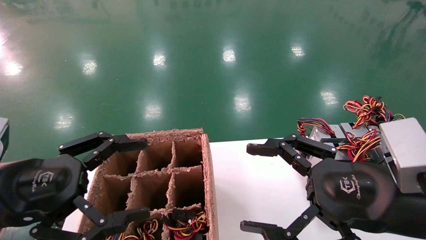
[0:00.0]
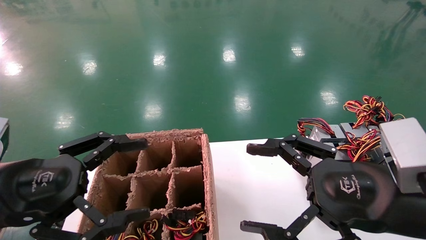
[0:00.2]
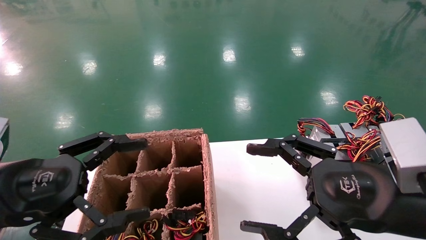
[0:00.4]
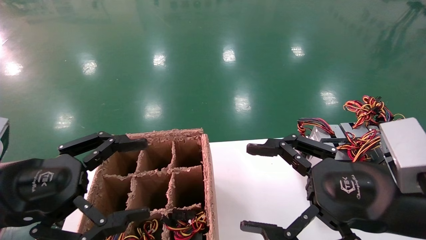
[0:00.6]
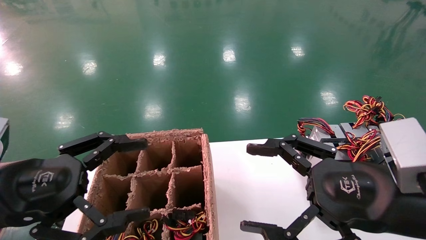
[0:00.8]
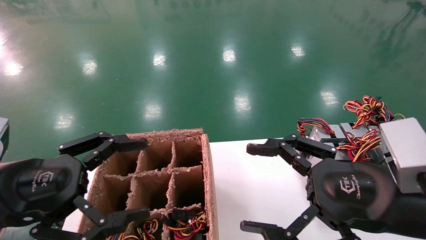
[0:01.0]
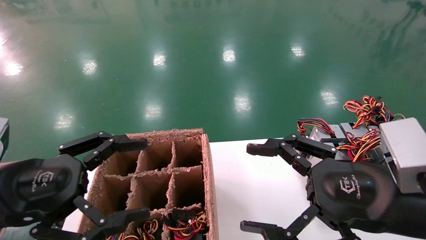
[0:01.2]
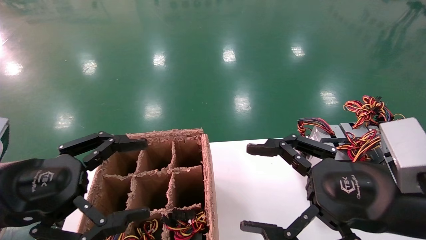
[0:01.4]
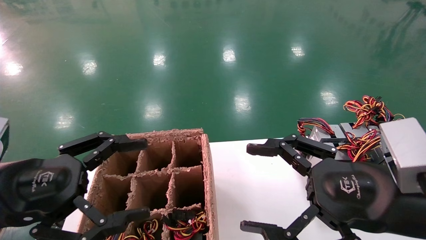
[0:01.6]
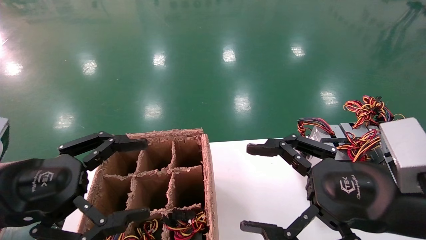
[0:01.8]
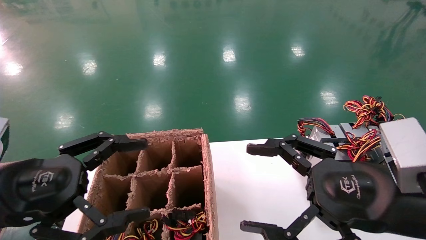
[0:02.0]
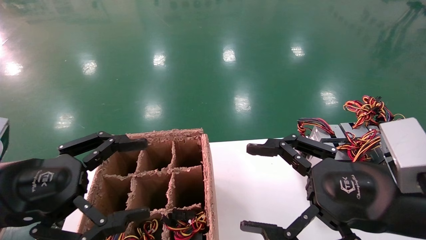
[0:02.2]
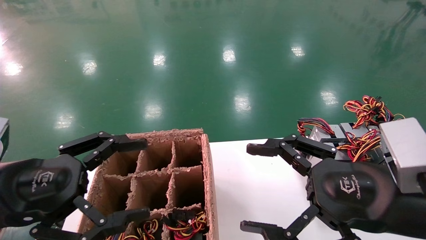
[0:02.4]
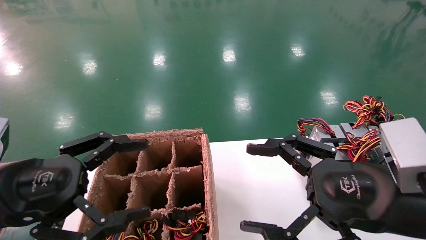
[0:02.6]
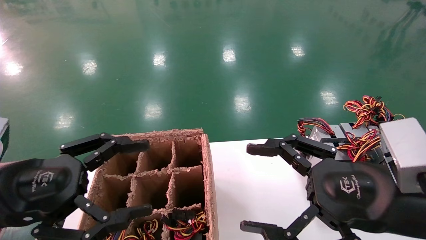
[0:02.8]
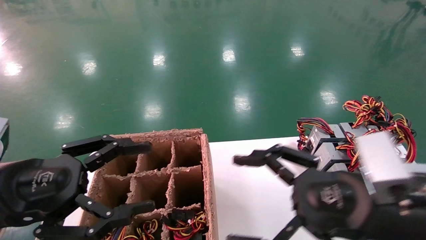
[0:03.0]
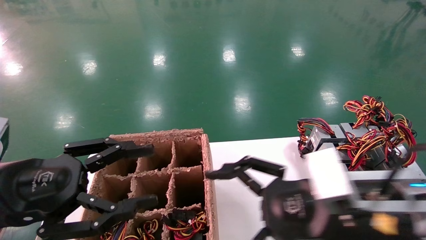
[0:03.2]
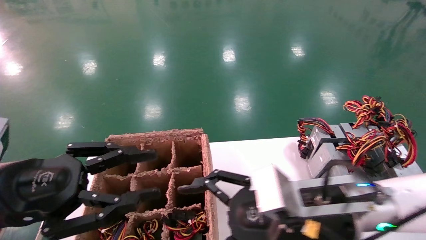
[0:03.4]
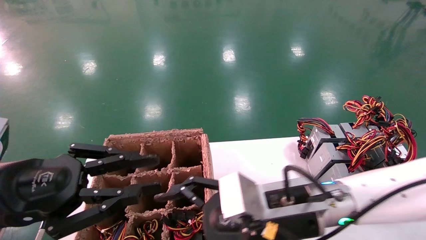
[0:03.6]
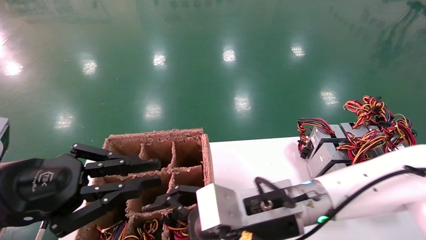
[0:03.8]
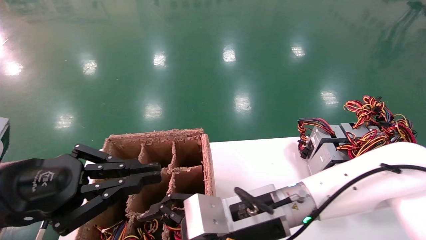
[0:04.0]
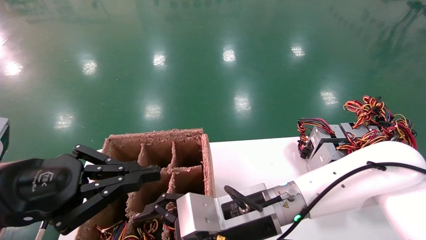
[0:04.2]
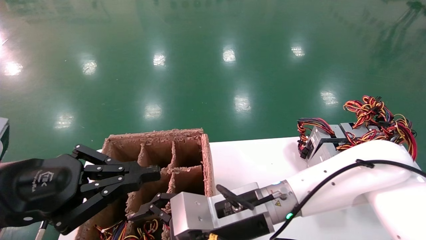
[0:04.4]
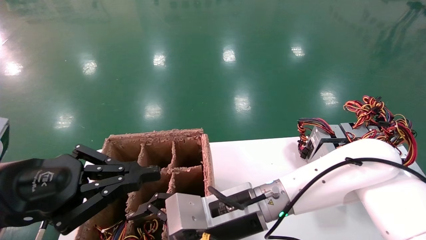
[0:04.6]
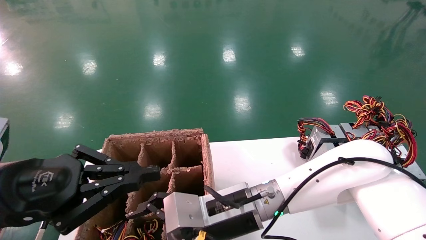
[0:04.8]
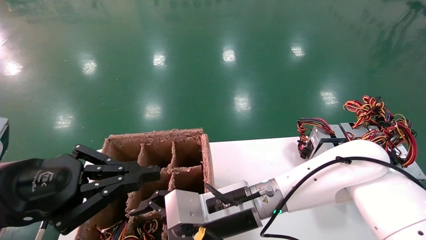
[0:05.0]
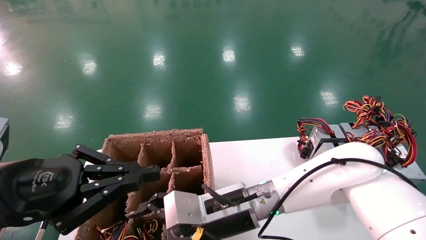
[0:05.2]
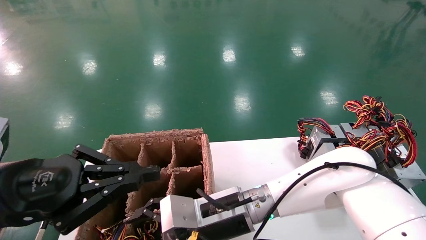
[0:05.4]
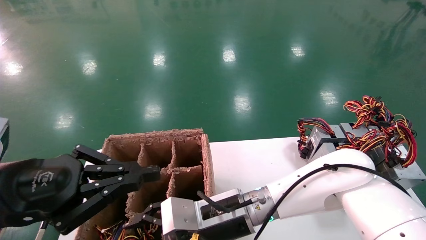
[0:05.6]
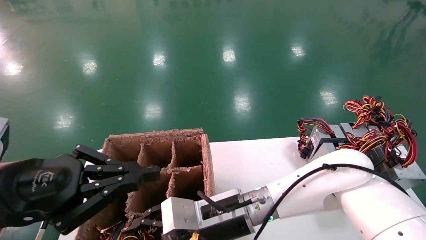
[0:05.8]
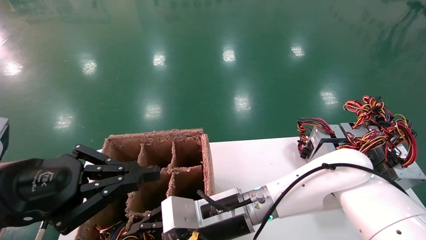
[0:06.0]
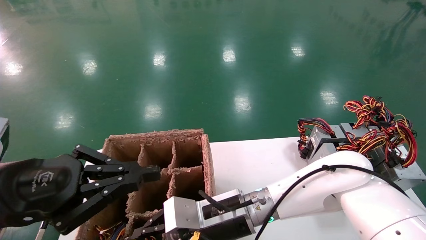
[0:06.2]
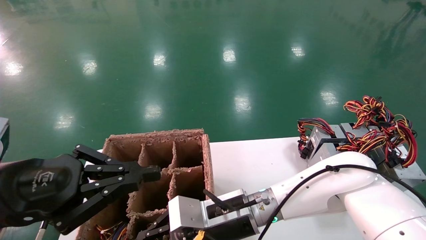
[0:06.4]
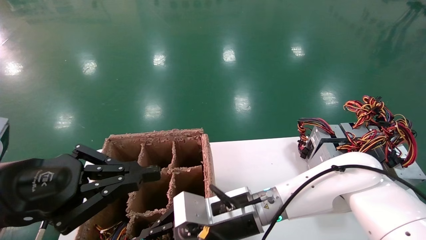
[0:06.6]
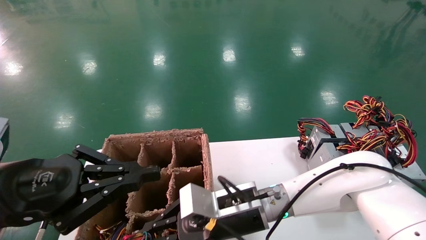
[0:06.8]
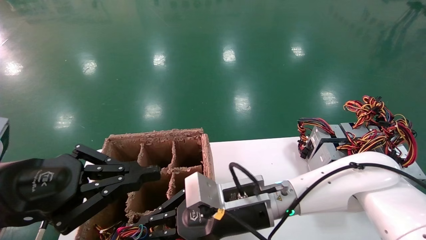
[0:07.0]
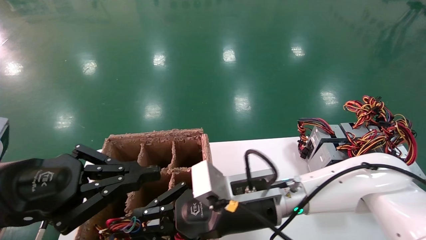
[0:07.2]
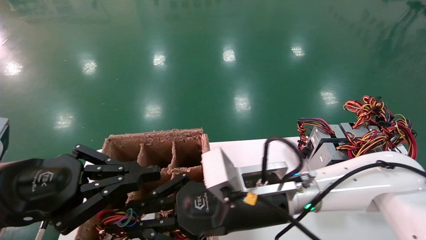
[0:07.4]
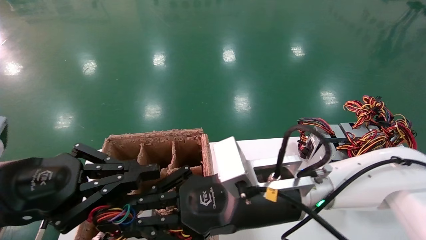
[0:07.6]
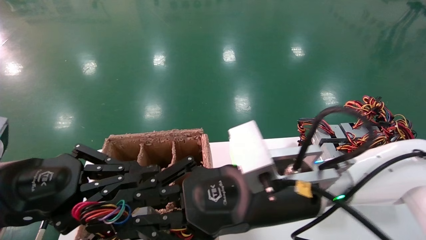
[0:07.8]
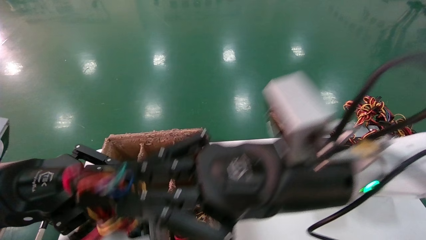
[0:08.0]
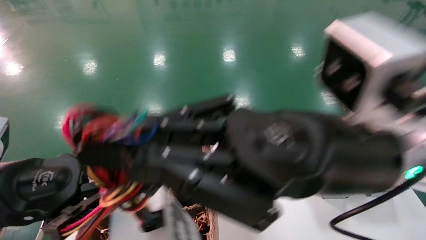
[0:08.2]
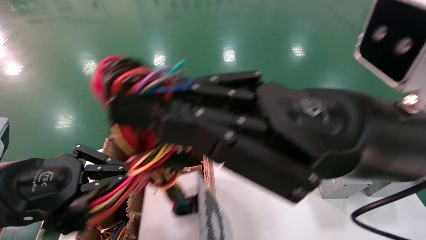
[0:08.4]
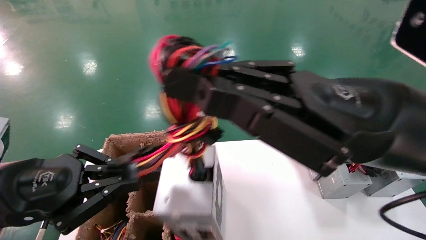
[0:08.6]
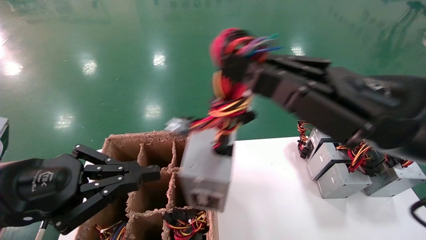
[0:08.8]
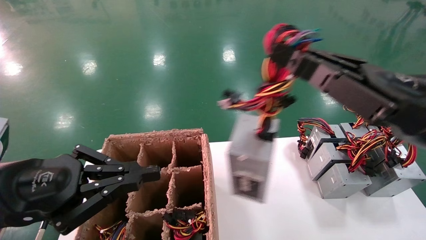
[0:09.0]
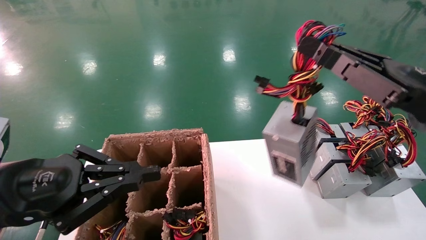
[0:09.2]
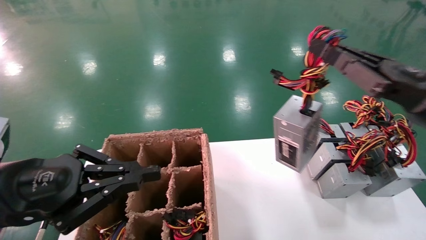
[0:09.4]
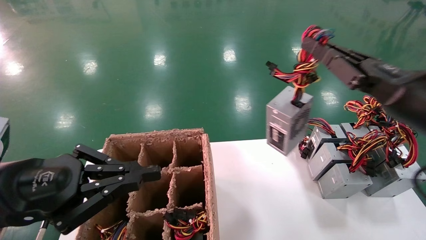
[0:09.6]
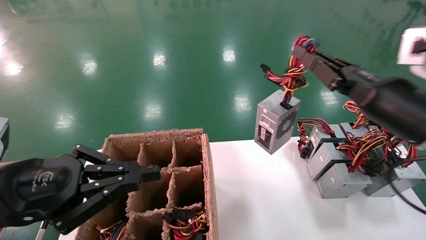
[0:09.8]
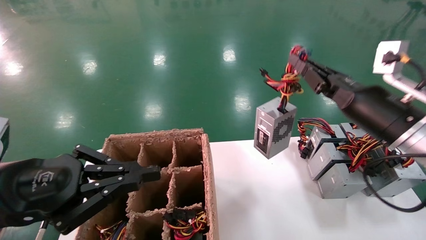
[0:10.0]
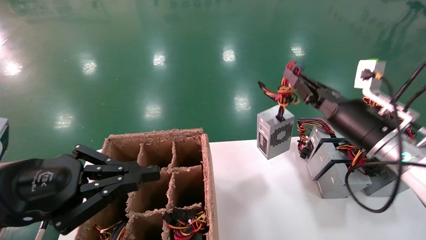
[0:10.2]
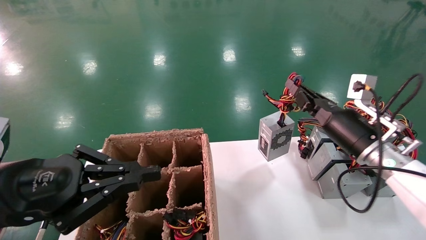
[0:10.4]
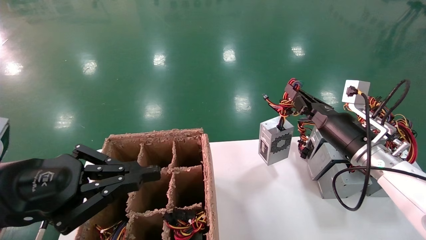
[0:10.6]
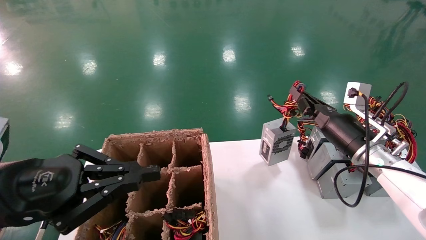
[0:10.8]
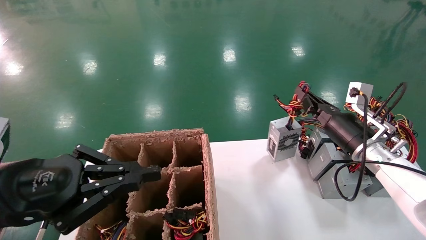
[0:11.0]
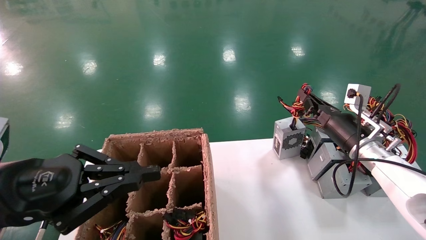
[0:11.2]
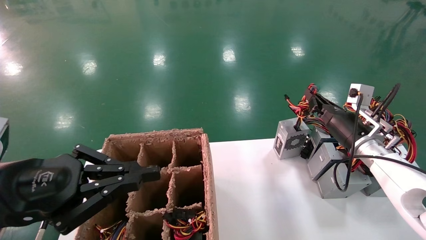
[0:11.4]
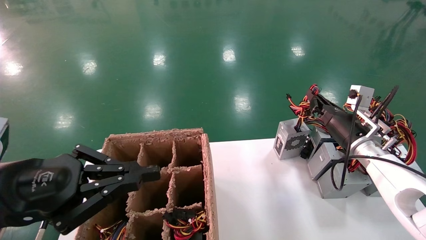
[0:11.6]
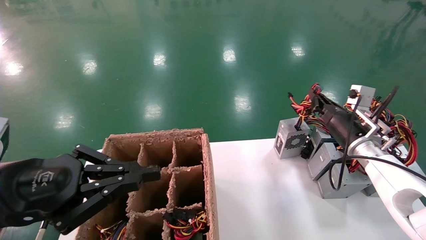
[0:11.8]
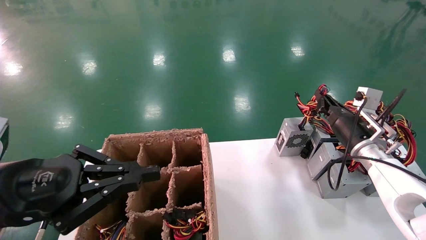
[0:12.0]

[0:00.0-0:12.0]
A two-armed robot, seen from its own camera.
Step, 0:03.2 to 0:06.4: Grab the main unit power supply from the containment box.
0:00.0 to 0:01.6: Both grippers stay about where they are.
0:01.6 to 0:03.0: There are only small adjustments of the grippers.
0:03.0 to 0:04.4: The right gripper shifts about 20 cm to the left, forward and downward; the left gripper closes up.
0:04.4 to 0:06.0: The right gripper moves roughly 5 cm, and closes its fingers.
0:06.0 to 0:07.6: The right gripper shifts some 10 cm upward and backward, and closes.
0:07.6 to 0:09.0: The right gripper heads to the right and upward, covering some 20 cm.
0:09.0 to 0:10.4: The right gripper goes approximately 20 cm forward and downward.
0:10.4 to 0:12.0: The right gripper shifts approximately 5 cm forward.

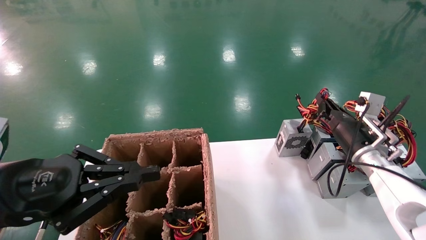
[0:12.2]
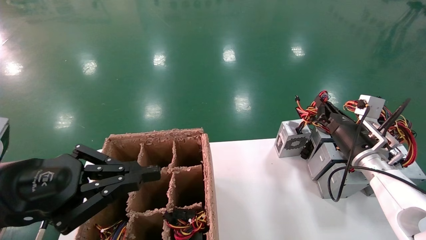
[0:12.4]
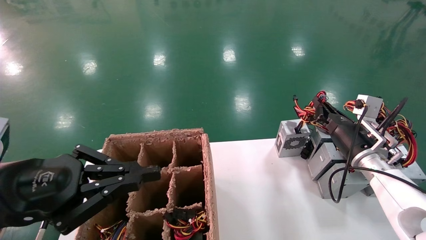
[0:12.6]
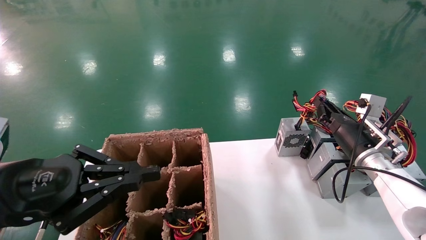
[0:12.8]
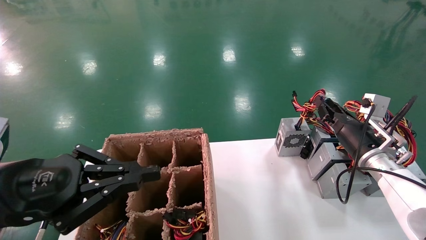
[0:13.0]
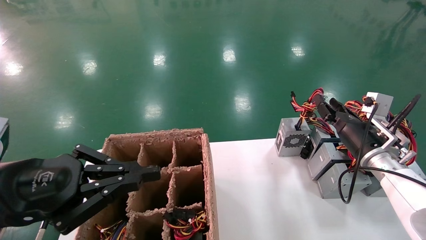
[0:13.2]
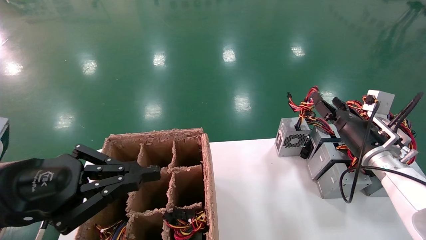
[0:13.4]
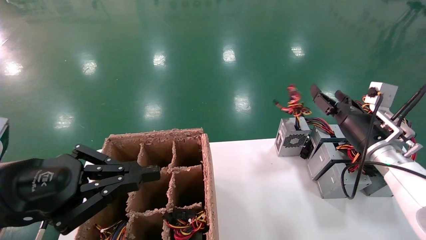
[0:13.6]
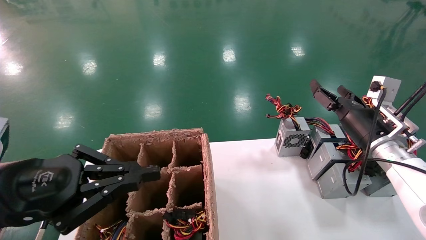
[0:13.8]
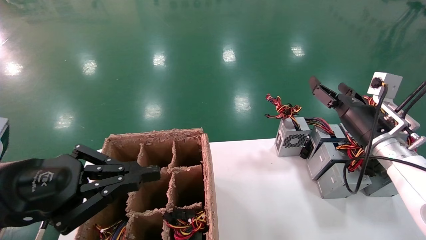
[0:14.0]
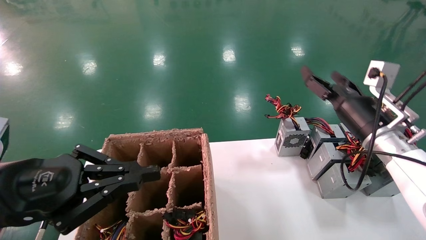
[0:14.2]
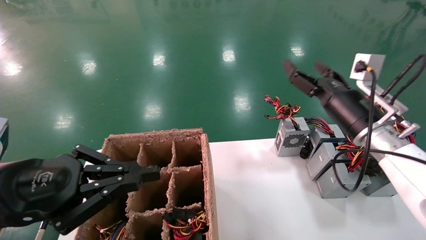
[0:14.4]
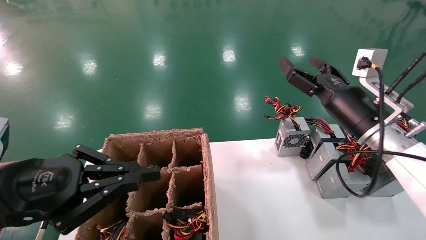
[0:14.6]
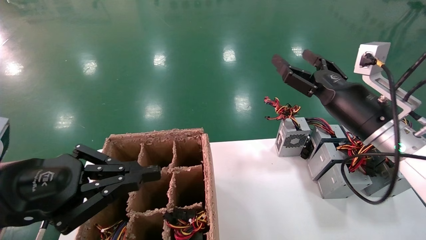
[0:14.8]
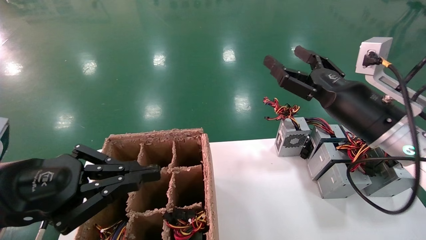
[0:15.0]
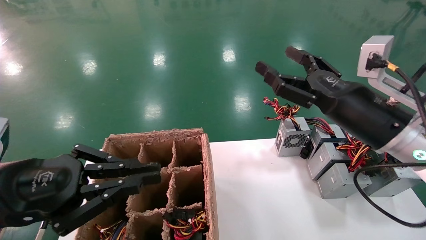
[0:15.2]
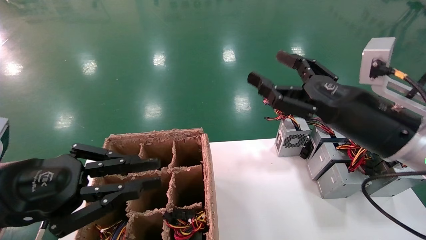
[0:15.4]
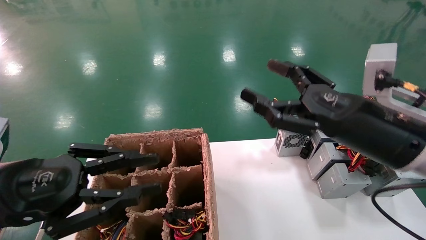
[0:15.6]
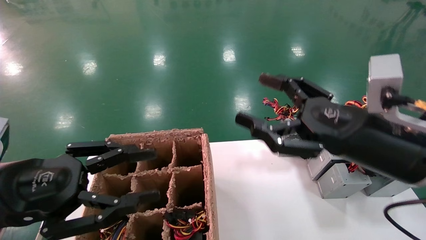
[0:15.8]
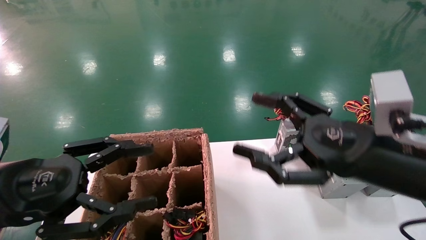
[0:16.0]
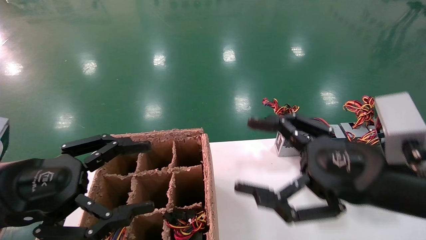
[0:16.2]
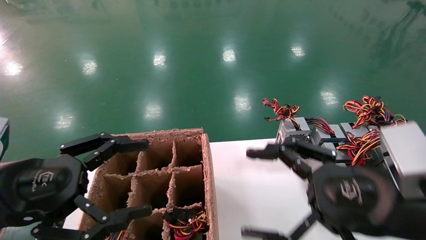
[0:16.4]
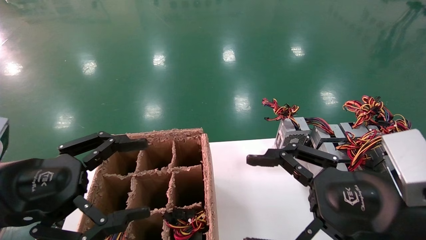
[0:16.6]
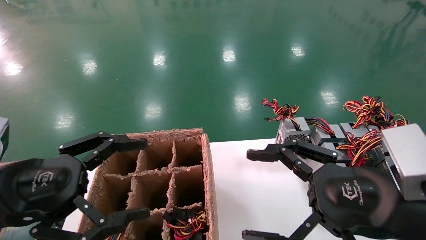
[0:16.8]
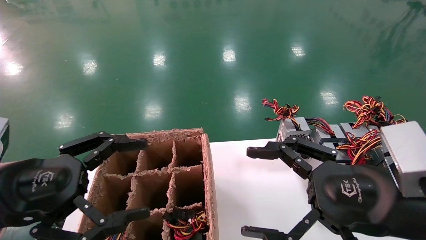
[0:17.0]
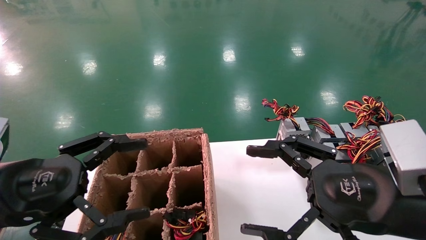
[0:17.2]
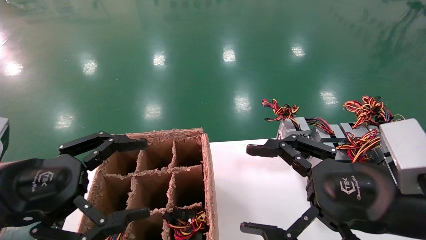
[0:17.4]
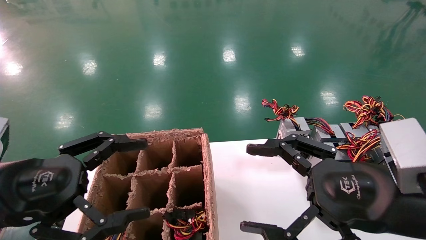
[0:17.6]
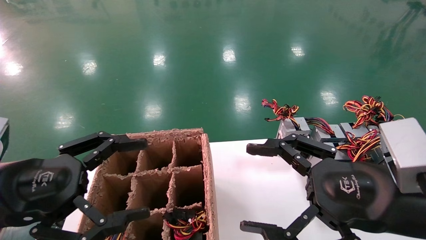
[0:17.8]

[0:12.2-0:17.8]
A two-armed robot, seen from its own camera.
0:12.2 to 0:13.6: The right gripper opens its fingers.
0:13.6 to 0:15.0: The right gripper shifts some 15 cm upward, backward and to the left, and opens.
0:15.0 to 0:16.4: The left gripper opens; the right gripper heads backward, covering some 15 cm.
0:16.4 to 0:17.8: Neither gripper changes place.
